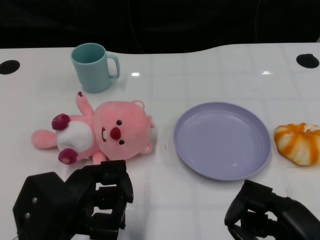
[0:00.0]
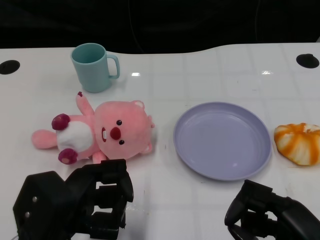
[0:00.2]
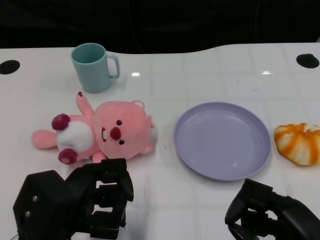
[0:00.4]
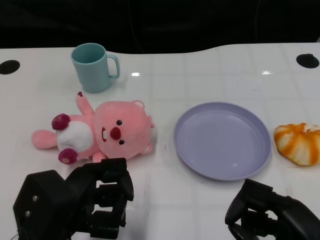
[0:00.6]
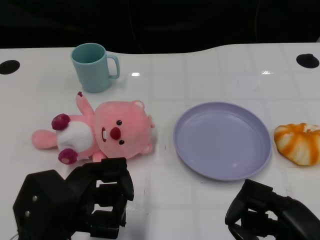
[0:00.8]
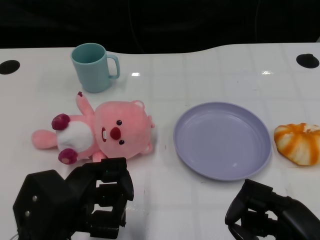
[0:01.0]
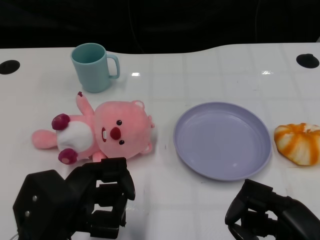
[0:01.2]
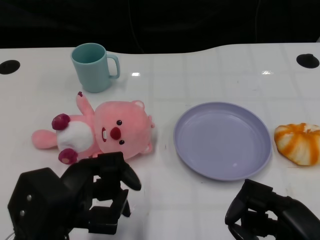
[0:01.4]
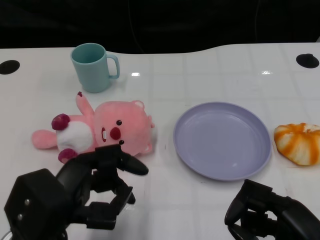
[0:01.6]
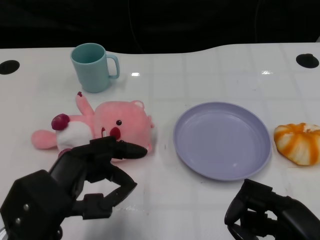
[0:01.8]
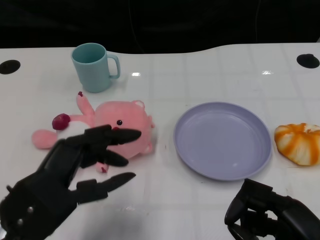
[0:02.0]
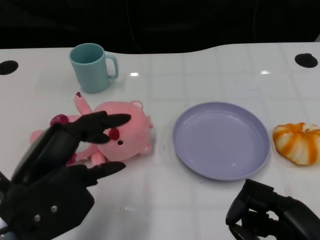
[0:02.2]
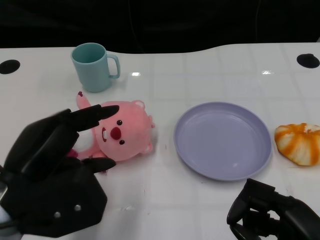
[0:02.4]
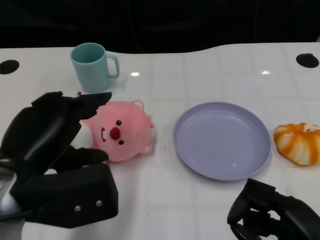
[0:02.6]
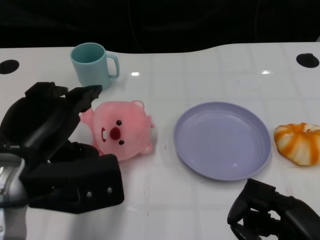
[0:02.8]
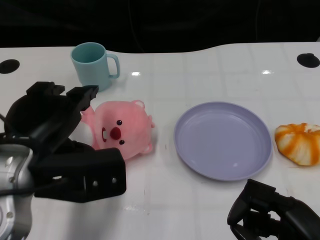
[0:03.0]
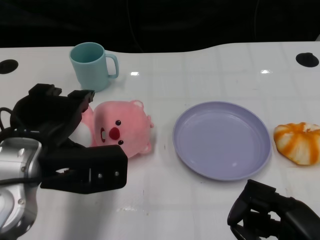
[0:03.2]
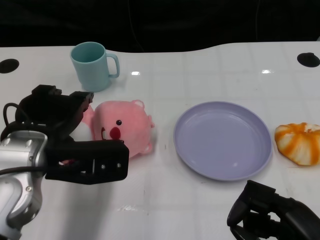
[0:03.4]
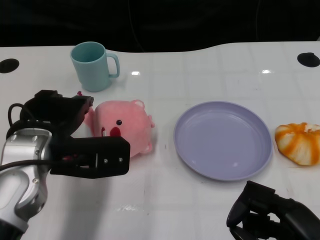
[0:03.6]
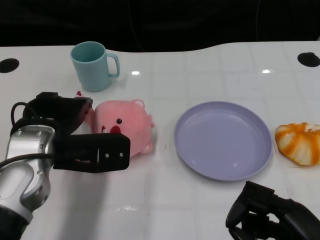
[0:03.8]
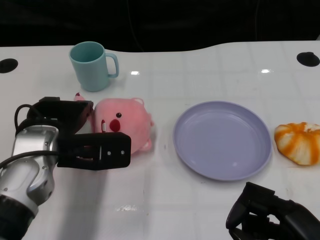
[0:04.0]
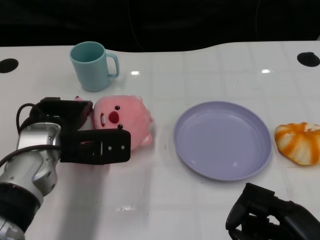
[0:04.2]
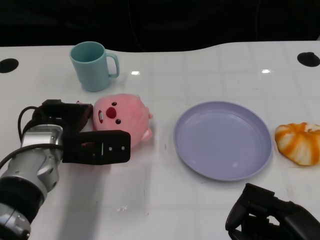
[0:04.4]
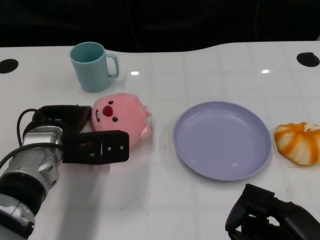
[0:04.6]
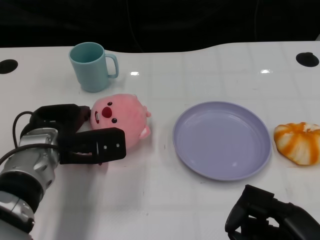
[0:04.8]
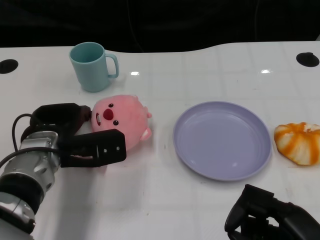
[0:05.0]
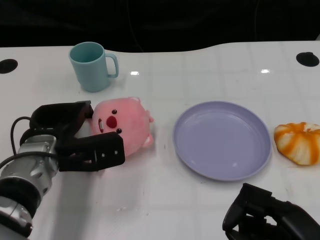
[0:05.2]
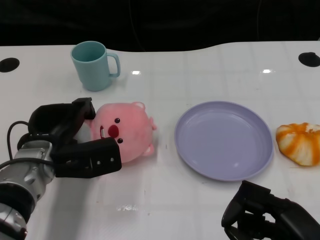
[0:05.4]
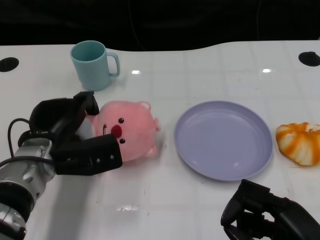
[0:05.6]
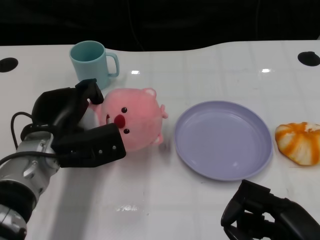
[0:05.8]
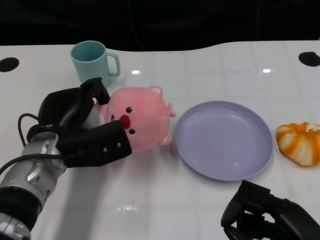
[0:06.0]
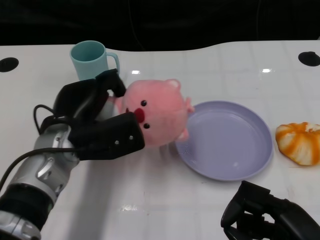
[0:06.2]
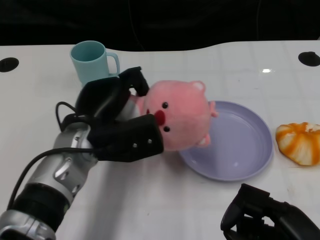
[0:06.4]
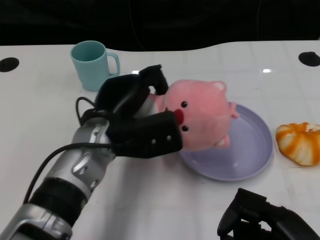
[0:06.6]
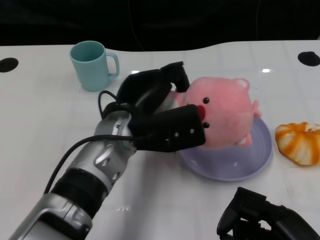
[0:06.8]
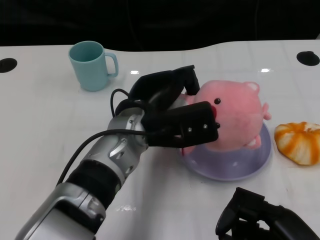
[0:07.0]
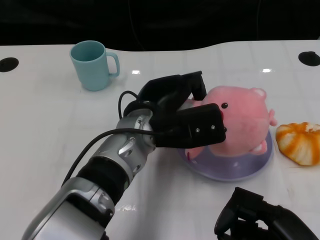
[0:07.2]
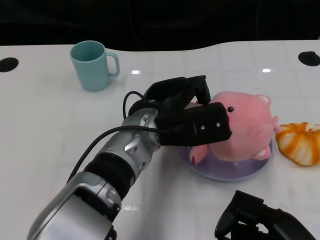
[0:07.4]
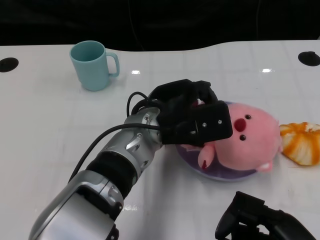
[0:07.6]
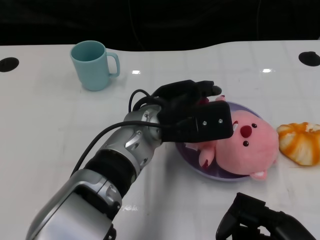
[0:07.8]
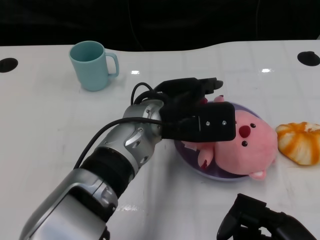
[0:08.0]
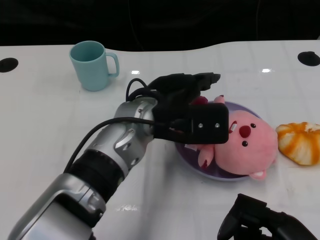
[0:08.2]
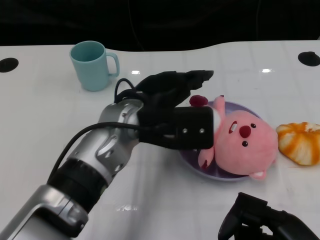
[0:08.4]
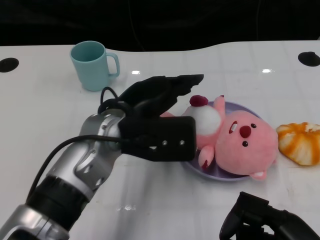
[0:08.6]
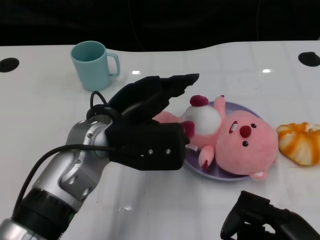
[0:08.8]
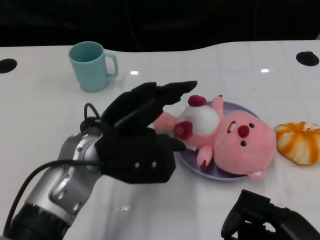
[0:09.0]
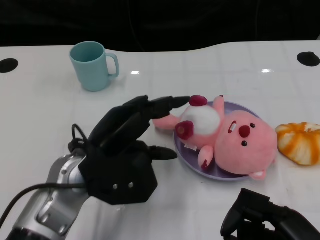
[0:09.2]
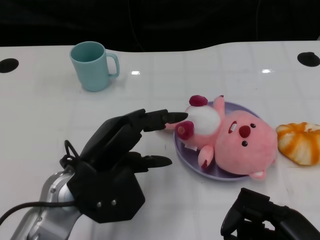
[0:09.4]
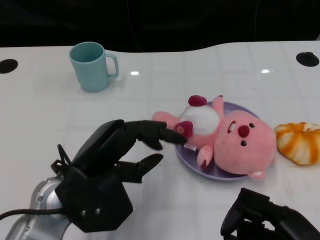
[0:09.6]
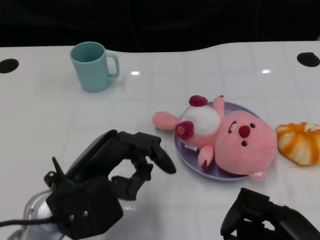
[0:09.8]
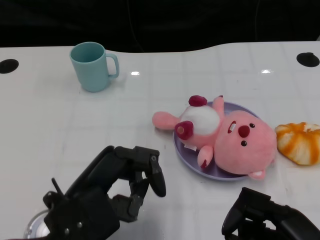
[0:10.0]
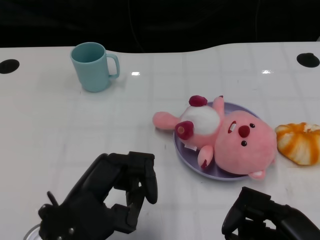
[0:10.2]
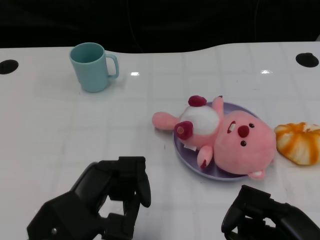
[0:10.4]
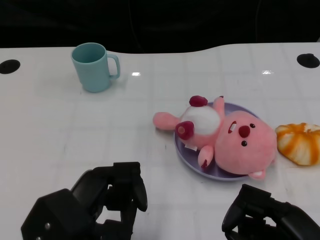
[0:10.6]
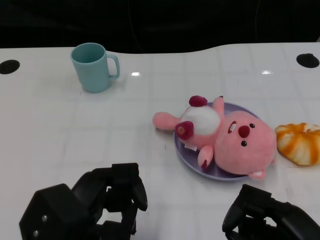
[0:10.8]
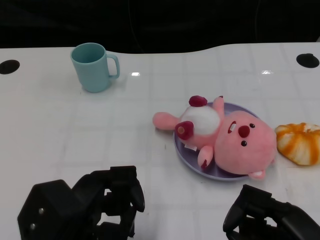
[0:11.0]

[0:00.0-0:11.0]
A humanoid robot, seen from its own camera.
Task of the whole recording: Pick up the doll on one side of the plate and place it into the plate.
Step, 0:01.2 to 0:05.6: Grasp the pink doll with the left gripper.
Step, 0:05.8 to 0:08.2: Place the pink doll into the plate with the left gripper.
0:01.6 to 0:03.2: The left hand heads forward and upward, covering about 10 cm.
0:03.2 to 0:04.8: The left hand shifts roughly 10 cm downward and forward.
0:06.2 to 0:07.8: The left hand shifts approximately 10 cm to the right.
0:07.8 to 0:09.4: The left hand is displaced to the left and backward by about 15 cm.
0:09.4 to 0:11.0: The left hand heads backward, covering roughly 10 cm.

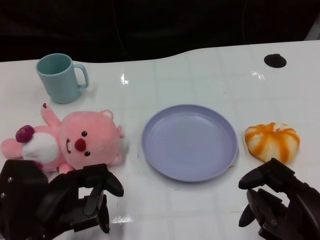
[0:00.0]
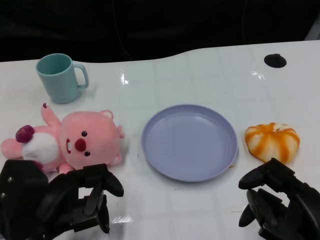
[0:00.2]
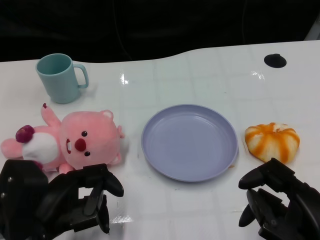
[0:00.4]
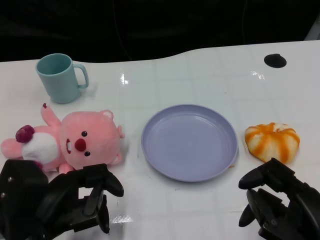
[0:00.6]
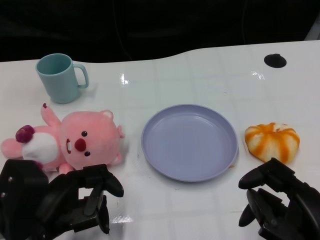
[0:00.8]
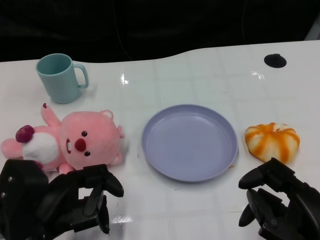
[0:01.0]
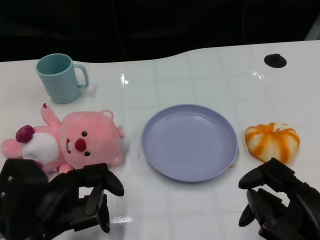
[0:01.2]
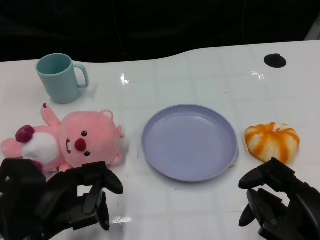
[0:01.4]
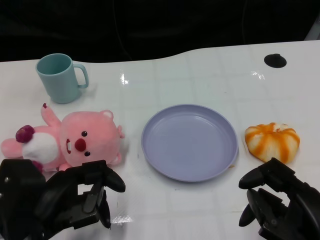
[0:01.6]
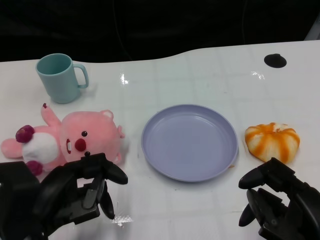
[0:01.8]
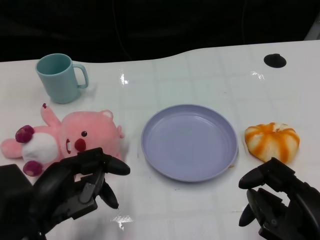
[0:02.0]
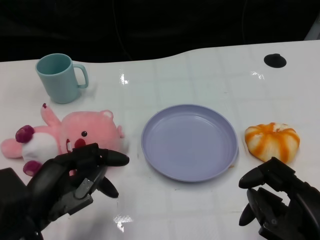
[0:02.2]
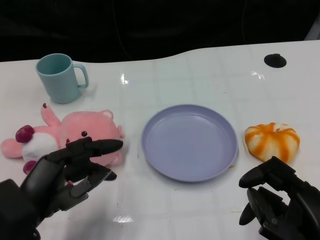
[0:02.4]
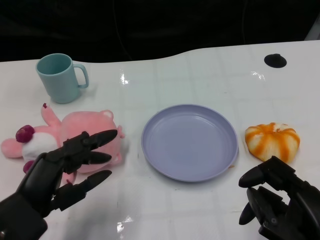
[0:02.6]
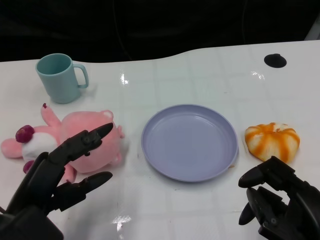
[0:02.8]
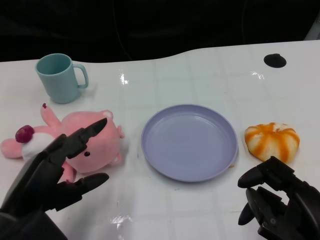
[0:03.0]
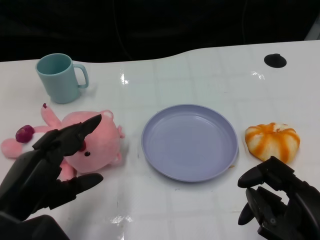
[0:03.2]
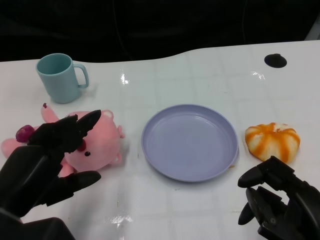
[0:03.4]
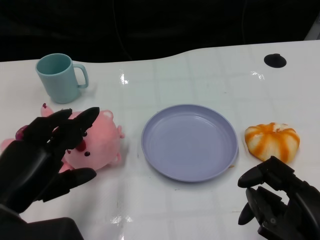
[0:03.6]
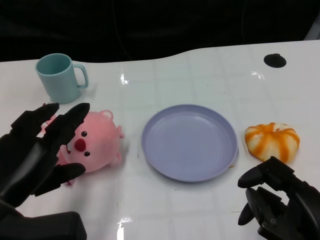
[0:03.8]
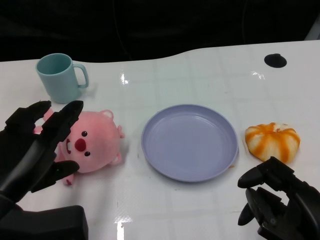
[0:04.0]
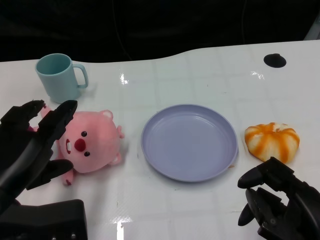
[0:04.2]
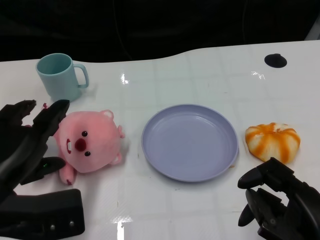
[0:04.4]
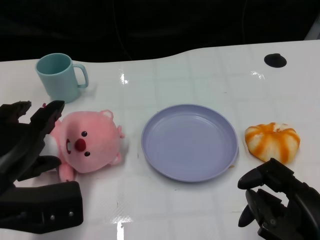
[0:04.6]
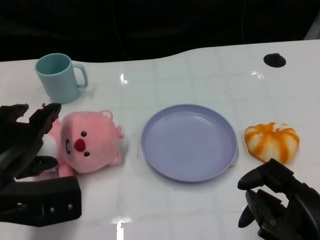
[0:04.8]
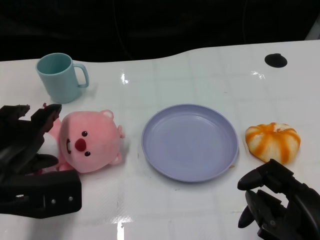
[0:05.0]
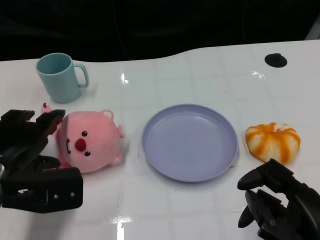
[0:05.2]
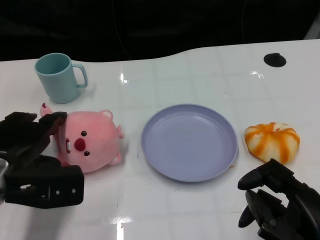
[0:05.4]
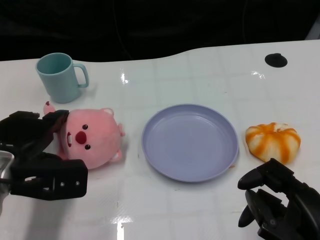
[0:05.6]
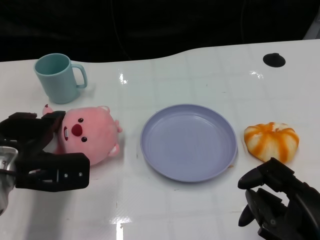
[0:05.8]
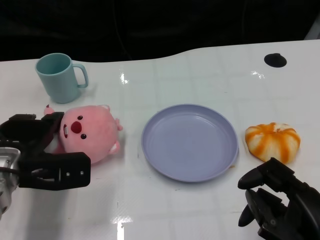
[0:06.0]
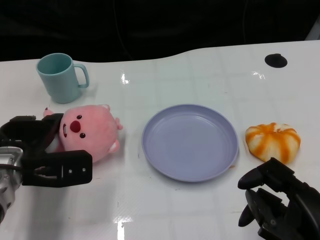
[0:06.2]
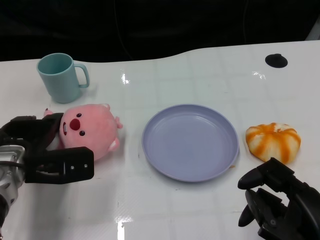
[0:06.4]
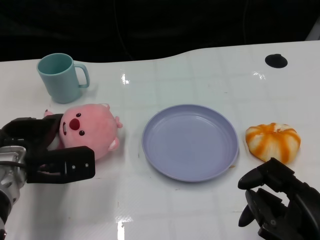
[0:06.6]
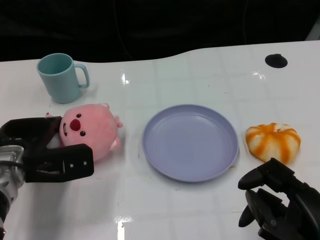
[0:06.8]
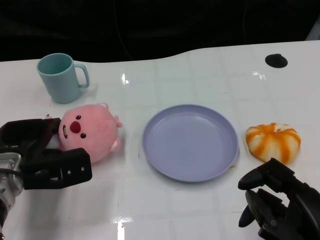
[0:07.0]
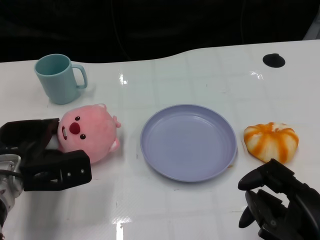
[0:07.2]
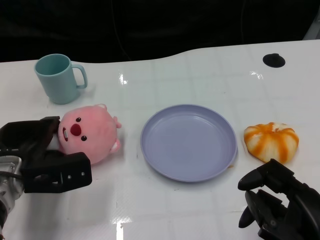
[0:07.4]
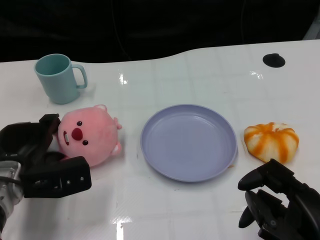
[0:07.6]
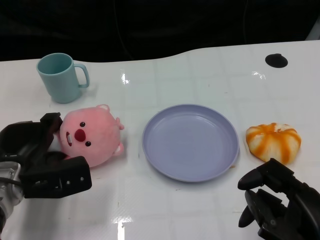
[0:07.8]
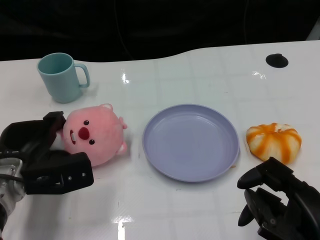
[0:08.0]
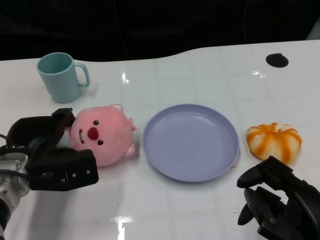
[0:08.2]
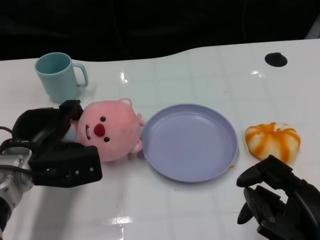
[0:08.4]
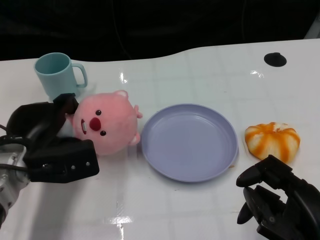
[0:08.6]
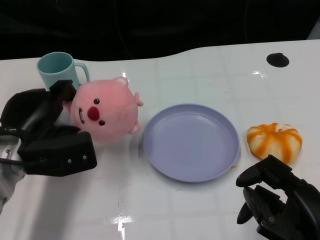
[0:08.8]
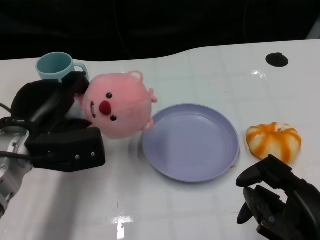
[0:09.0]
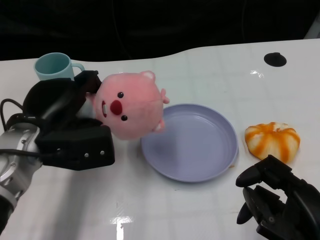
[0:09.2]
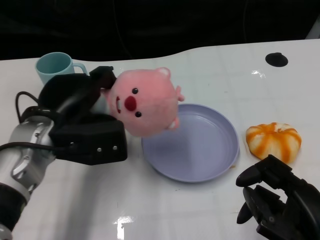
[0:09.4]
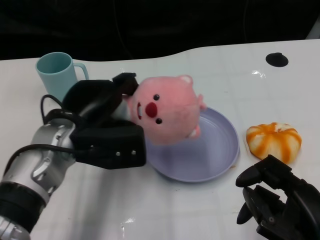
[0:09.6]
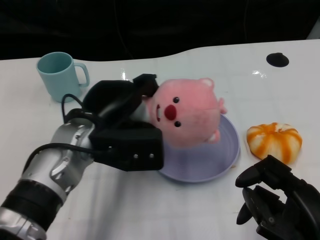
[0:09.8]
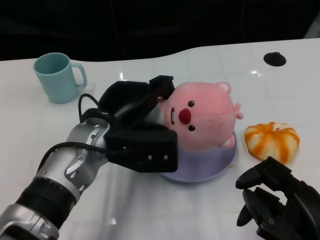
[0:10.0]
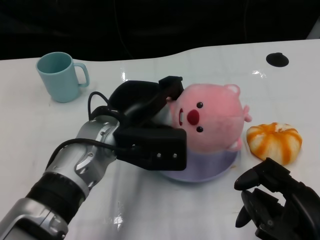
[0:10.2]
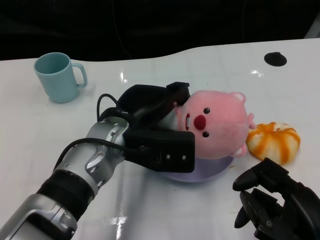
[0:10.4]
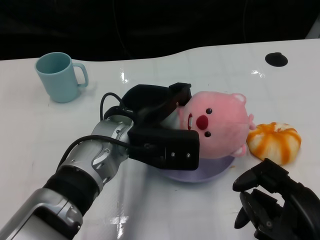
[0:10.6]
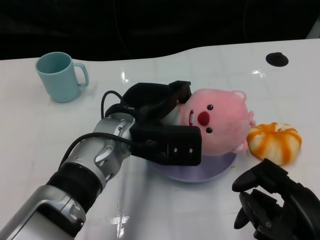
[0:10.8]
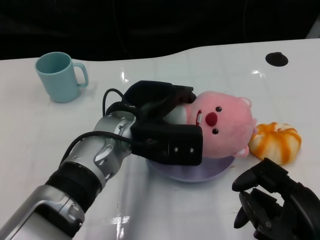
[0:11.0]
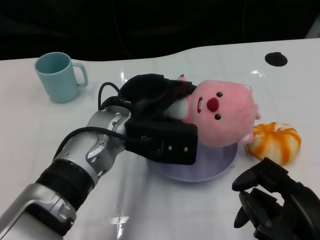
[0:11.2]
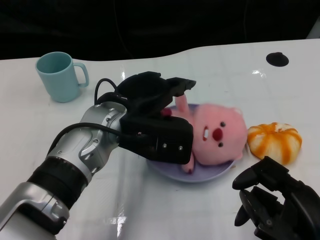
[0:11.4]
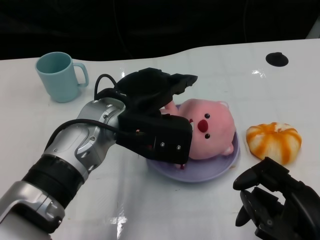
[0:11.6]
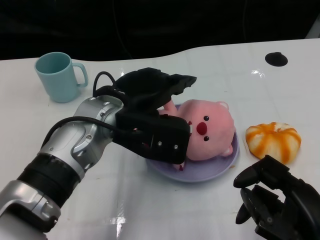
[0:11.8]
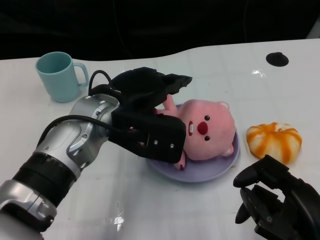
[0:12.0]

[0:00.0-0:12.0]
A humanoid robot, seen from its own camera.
Task of the whole recording: Pick up the doll on one side of the plate and place it into the plate.
Step, 0:01.4 to 0:08.4: Grasp the pink doll with the left gripper.
Step, 0:08.6 to 0:11.4: Place the pink doll into the plate with the left gripper.
0:04.4 to 0:06.0: The left hand goes roughly 10 cm forward and downward.
0:06.0 to 0:07.6: The hands stay close to where they were, moving slightly.
0:07.6 to 0:09.0: The left hand shifts about 5 cm upward.
0:09.0 to 0:10.4: The left hand shifts some 15 cm to the right.
